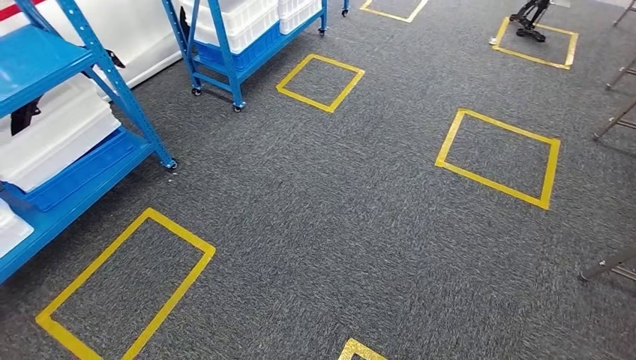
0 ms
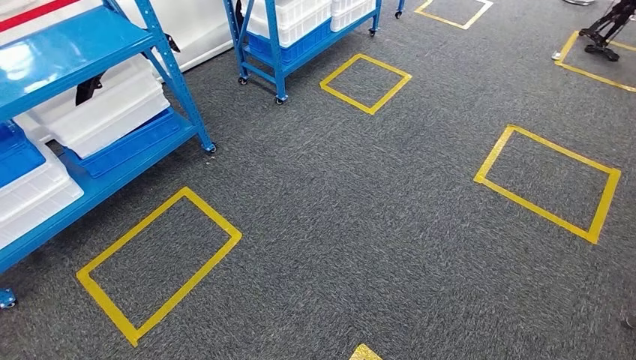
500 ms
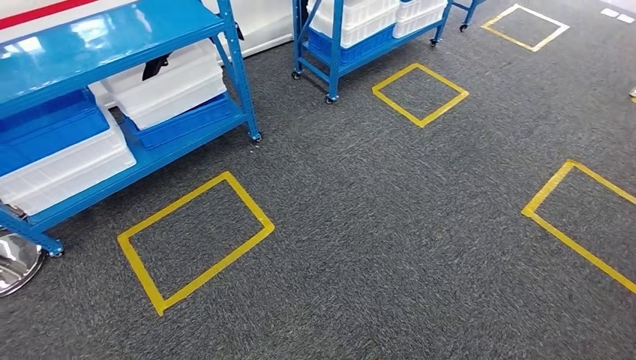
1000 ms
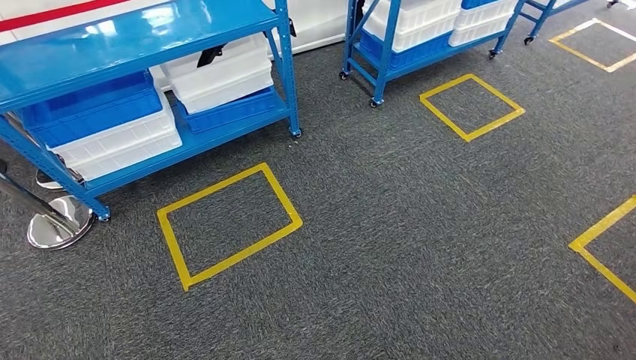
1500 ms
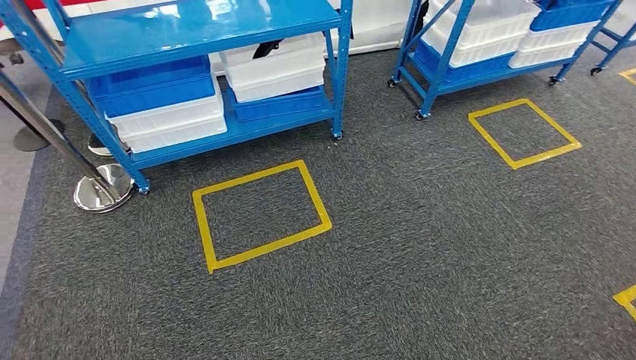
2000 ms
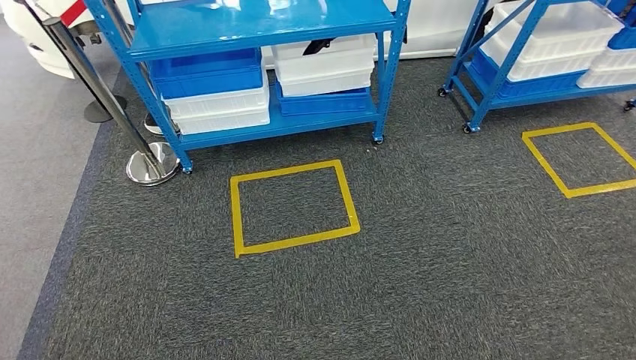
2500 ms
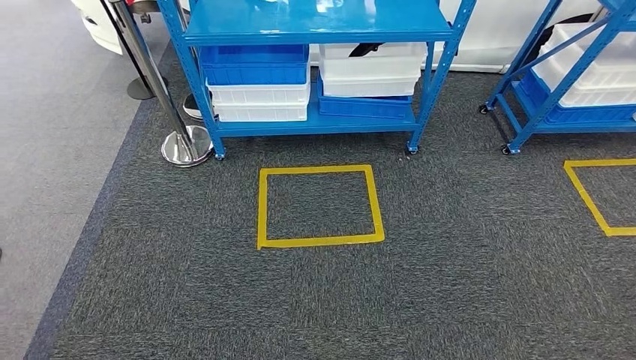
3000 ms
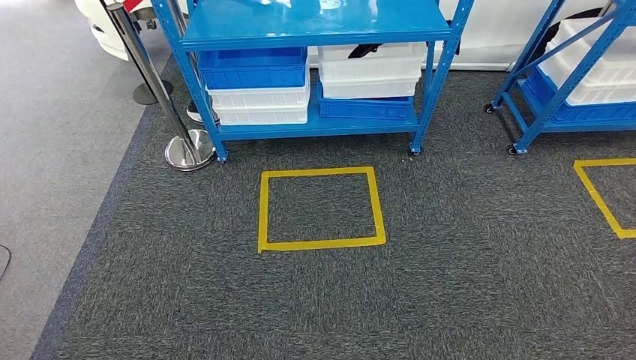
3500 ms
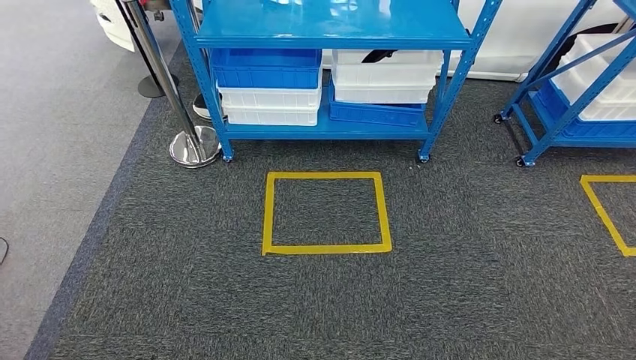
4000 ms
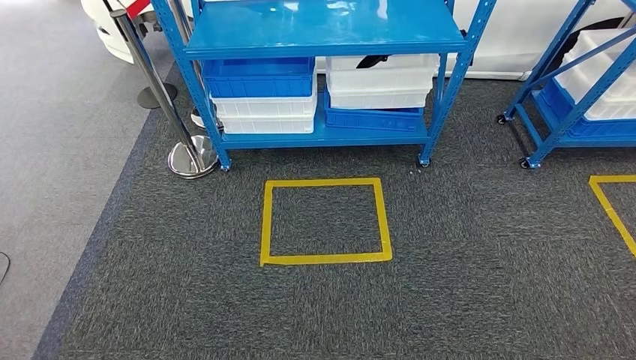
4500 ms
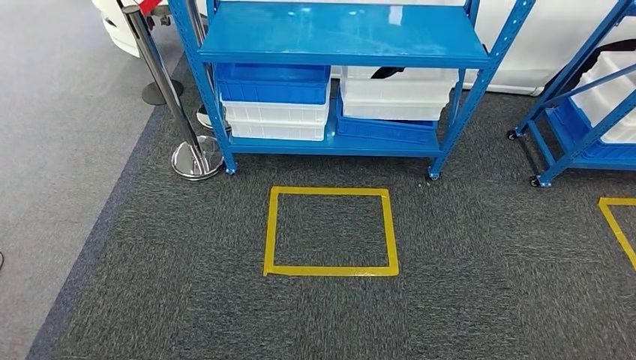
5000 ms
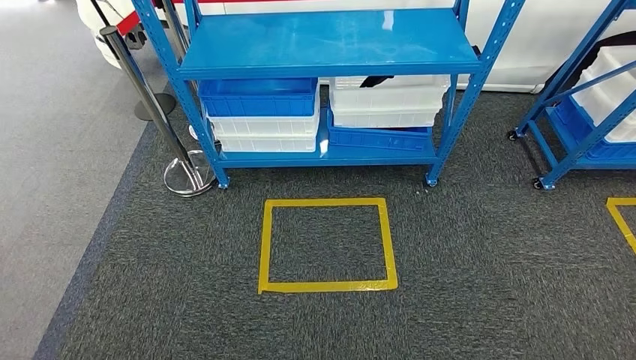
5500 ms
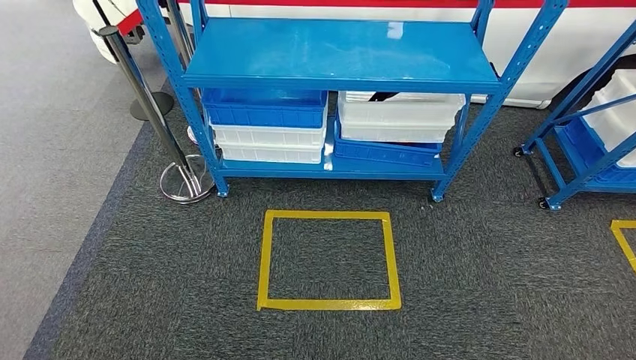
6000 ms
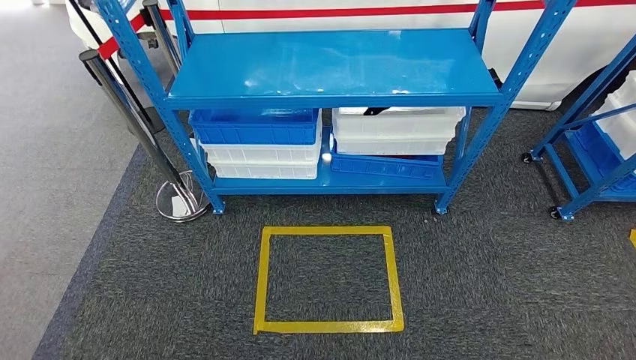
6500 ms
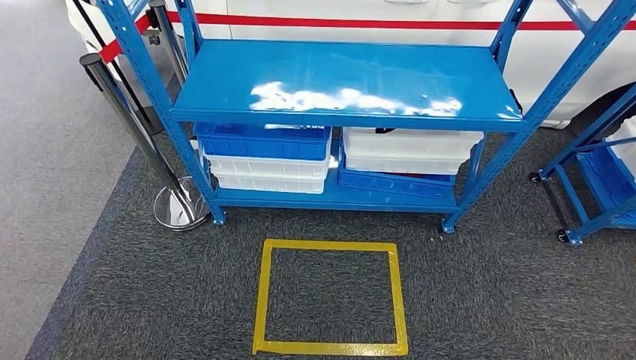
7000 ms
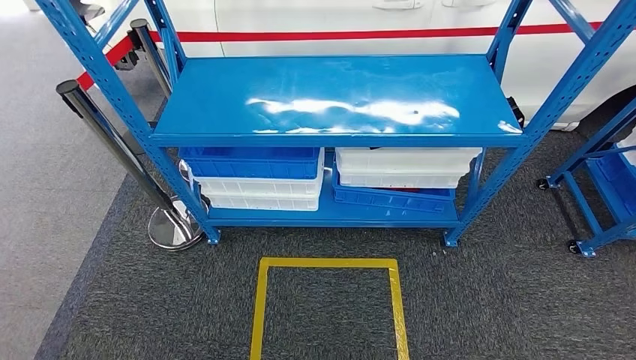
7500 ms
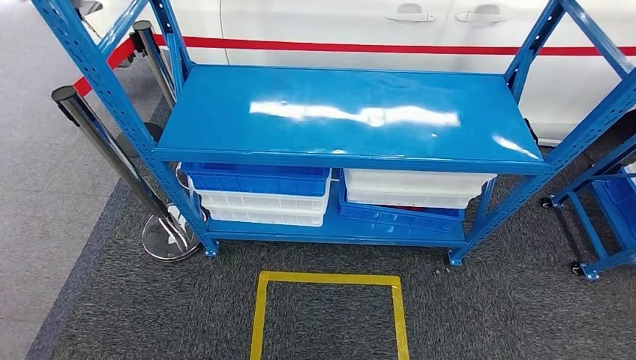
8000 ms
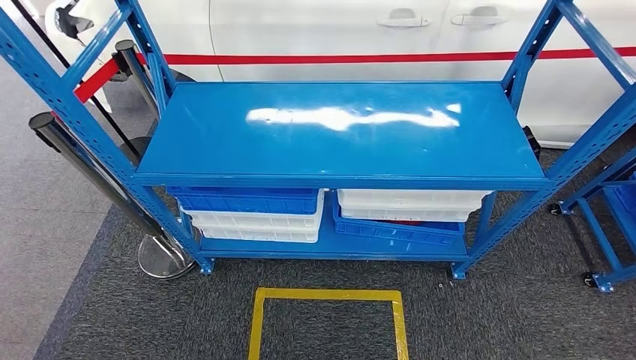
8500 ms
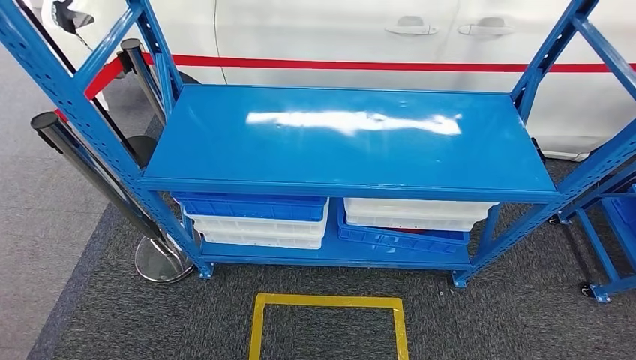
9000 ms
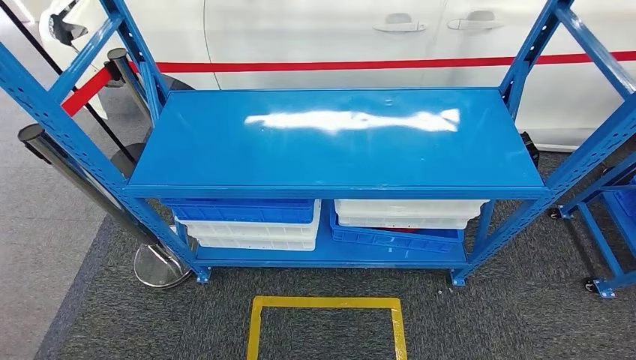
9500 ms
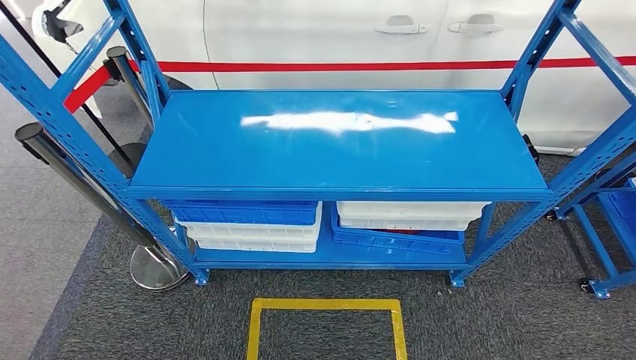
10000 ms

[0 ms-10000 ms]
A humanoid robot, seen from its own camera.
Step, 0 ms to 10000 ms: Move to the initial position of the shelf.
